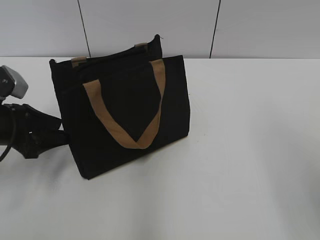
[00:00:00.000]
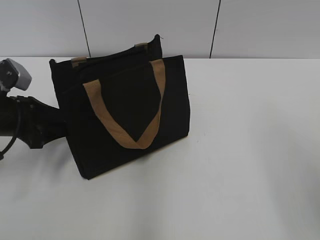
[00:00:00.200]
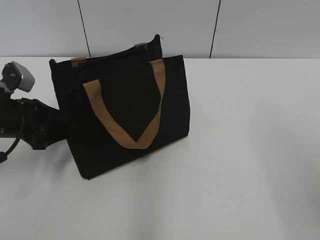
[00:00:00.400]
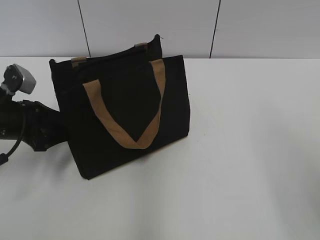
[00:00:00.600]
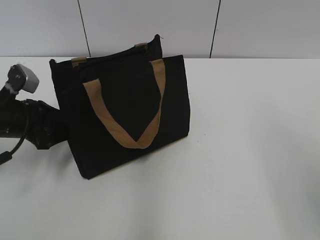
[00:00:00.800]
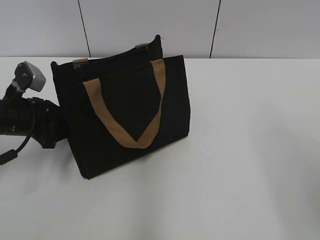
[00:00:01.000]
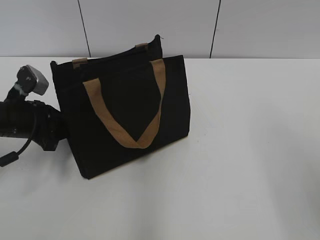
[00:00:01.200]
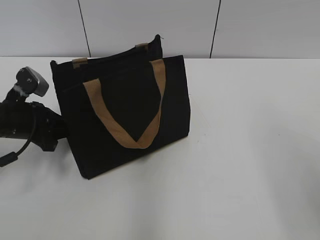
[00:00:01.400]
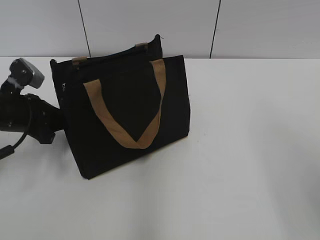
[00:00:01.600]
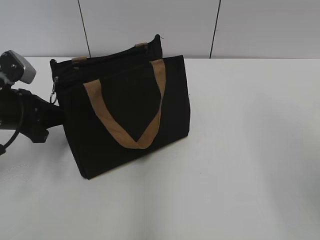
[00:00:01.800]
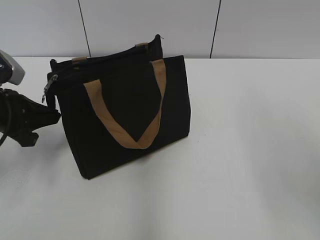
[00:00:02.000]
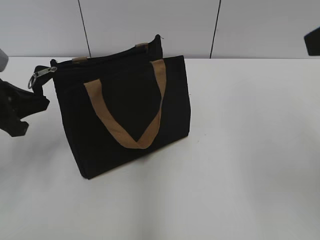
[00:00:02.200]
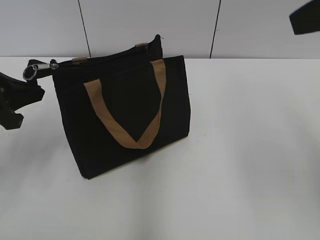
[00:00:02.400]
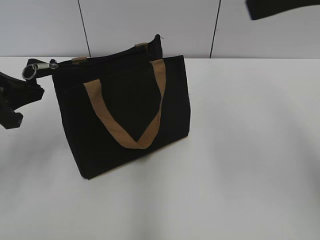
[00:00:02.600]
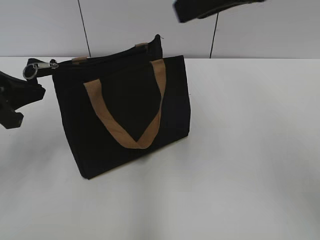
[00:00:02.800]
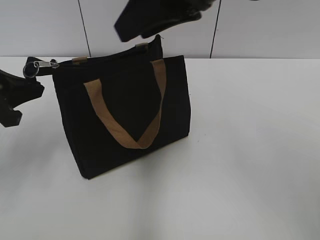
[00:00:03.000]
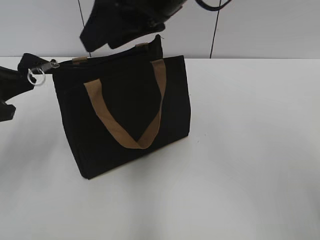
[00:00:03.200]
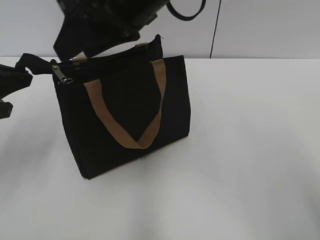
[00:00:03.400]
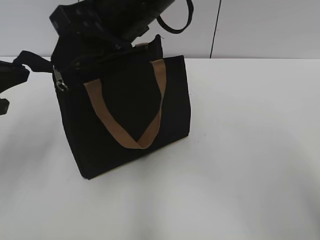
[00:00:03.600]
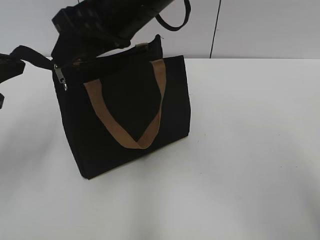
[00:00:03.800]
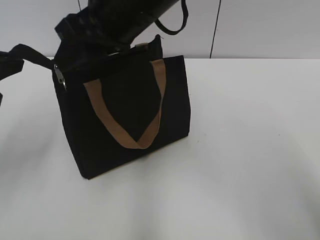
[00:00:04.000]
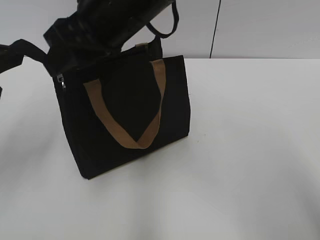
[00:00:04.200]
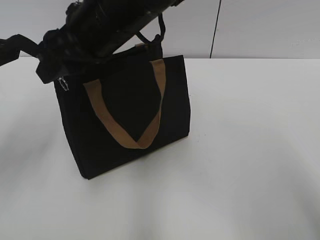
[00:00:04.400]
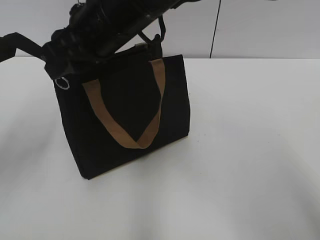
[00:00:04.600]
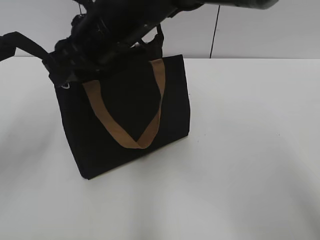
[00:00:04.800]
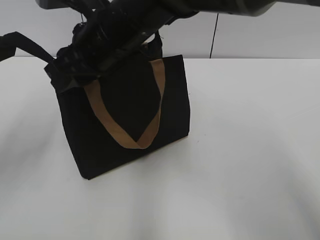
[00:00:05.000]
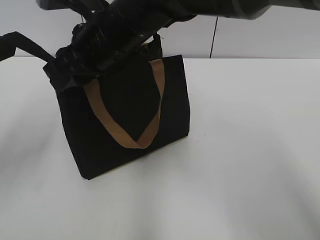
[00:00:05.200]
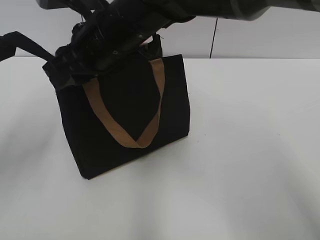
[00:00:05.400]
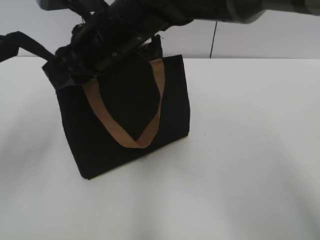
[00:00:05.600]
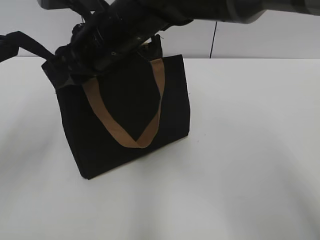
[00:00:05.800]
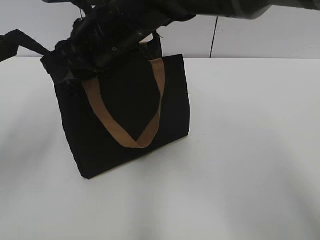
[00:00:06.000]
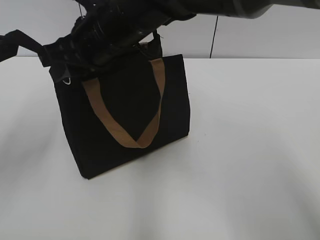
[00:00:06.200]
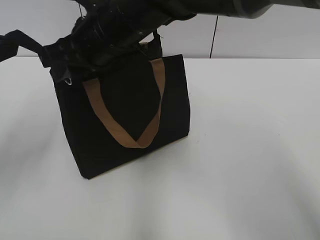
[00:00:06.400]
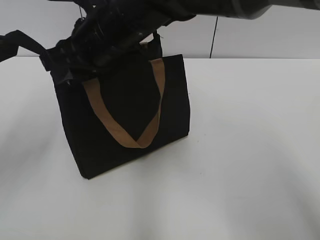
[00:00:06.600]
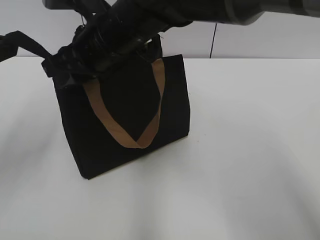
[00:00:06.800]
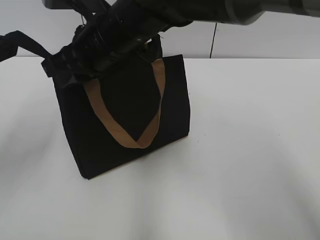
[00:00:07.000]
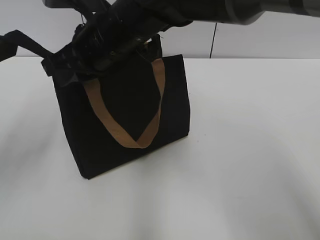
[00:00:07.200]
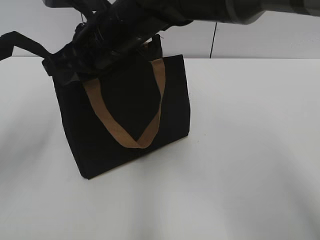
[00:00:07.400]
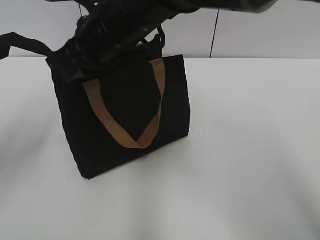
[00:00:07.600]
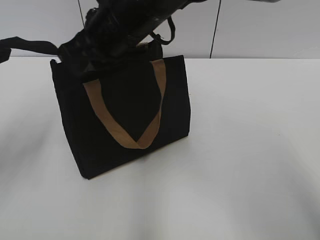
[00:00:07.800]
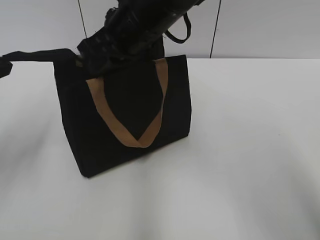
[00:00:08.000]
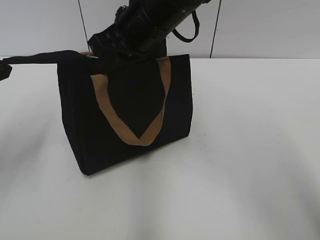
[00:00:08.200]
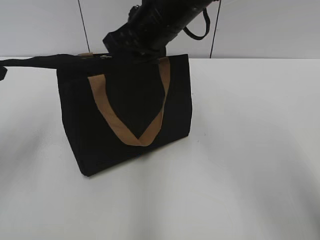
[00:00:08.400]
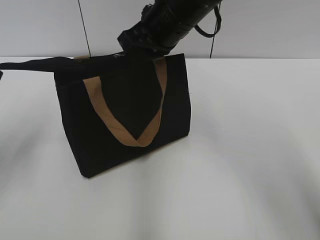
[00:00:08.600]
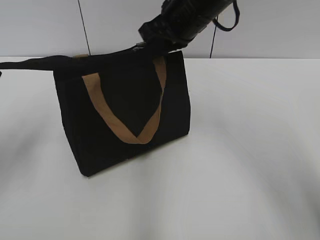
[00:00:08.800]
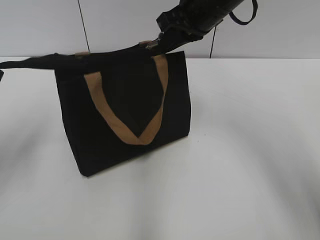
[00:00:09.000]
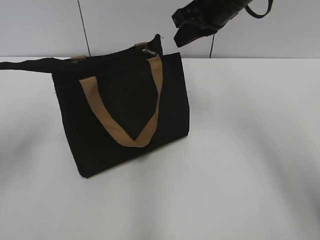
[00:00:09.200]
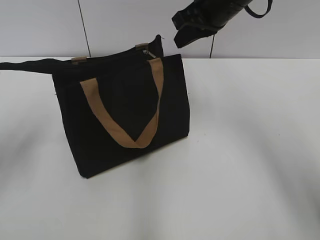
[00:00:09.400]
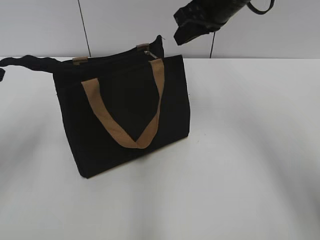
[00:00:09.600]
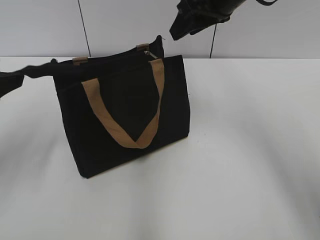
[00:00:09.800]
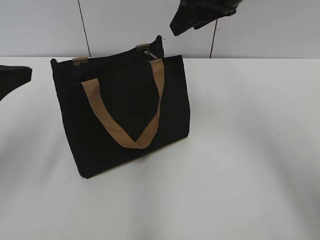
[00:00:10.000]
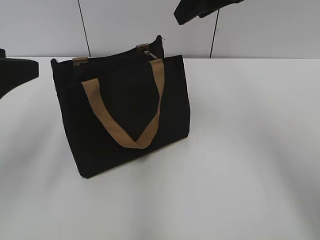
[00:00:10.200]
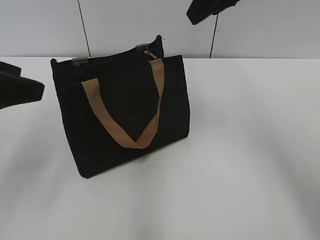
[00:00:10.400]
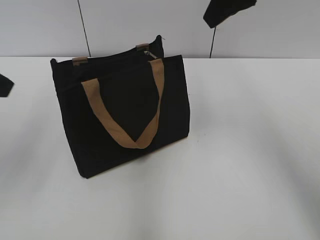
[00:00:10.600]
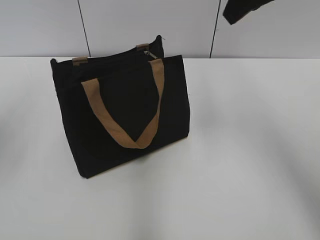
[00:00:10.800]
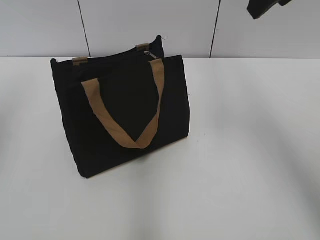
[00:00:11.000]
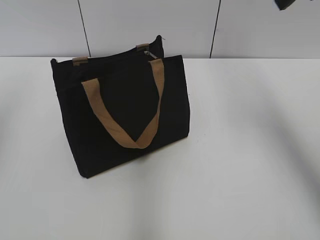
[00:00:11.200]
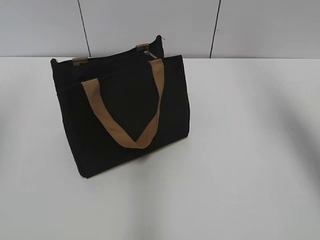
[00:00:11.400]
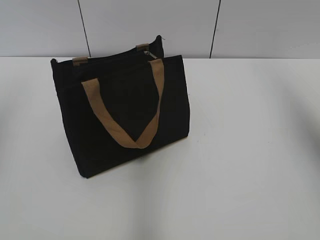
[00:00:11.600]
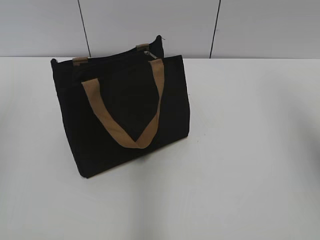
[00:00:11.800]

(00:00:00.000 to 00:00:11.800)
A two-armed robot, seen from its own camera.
Step, 00:00:00.000 - 00:00:09.000: Zip up the bag with your right hand.
Step, 00:00:09.200 - 00:00:10.000: Grab the zipper with your left hand.
00:00:00.000 - 00:00:01.400: The left gripper closes up.
00:00:01.400 - 00:00:03.000: The left gripper travels upward and backward by approximately 10 cm. The right gripper moves to the left and forward, approximately 25 cm.
00:00:03.000 - 00:00:04.400: The left gripper is displaced upward by roughly 5 cm, while the right gripper moves to the left and downward, about 15 cm.
00:00:04.400 - 00:00:06.000: There are only small adjustments of the grippers.
00:00:06.000 - 00:00:07.400: The right gripper closes up.
00:00:07.400 - 00:00:08.800: The right gripper is displaced to the right and forward by roughly 10 cm.
00:00:08.800 - 00:00:10.400: The right gripper heads upward and to the right, covering approximately 10 cm, and opens its fingers, while the left gripper shifts by roughly 5 cm, and opens up.
00:00:10.400 - 00:00:11.800: The left gripper heads upward and to the left, covering roughly 10 cm; the right gripper travels to the right and backward by roughly 20 cm.

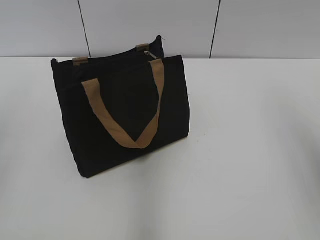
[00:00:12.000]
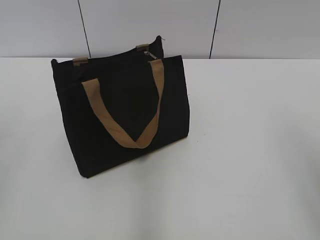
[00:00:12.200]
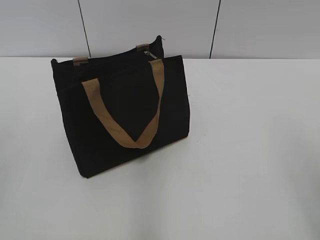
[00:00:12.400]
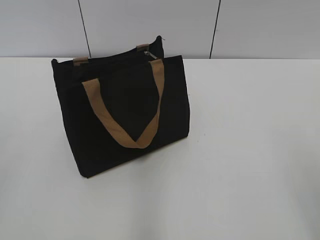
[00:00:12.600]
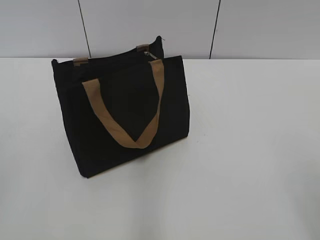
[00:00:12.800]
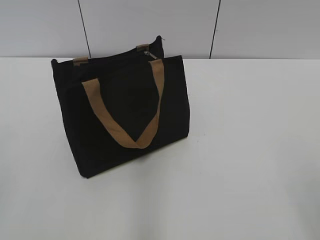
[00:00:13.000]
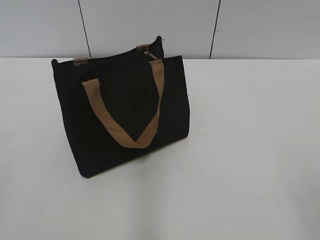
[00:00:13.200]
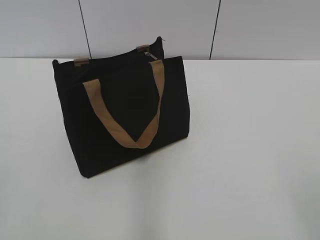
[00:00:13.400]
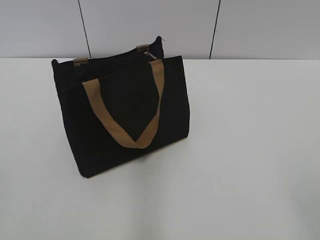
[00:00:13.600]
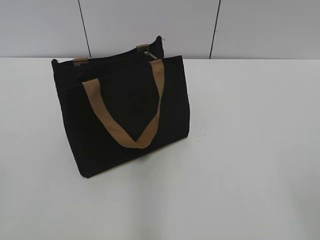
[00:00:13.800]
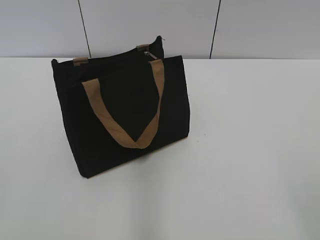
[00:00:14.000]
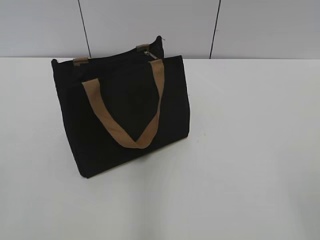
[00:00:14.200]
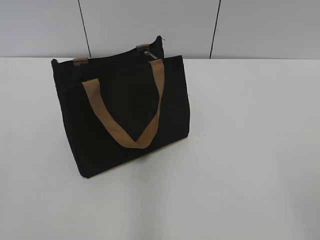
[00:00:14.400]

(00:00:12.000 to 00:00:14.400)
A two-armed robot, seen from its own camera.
00:00:12.000 - 00:00:13.200: The right gripper moves backward and downward, about 20 cm.
